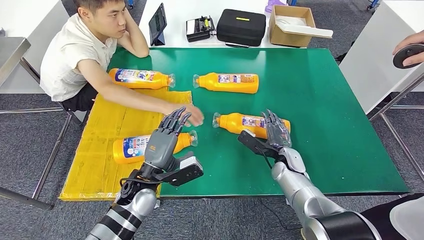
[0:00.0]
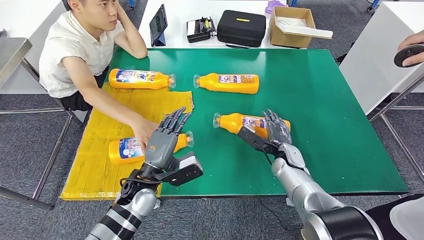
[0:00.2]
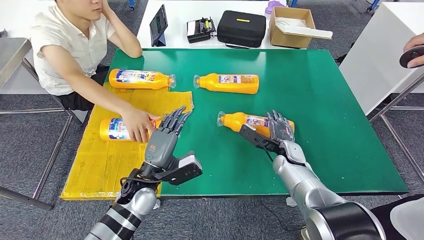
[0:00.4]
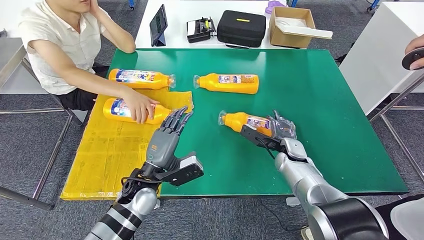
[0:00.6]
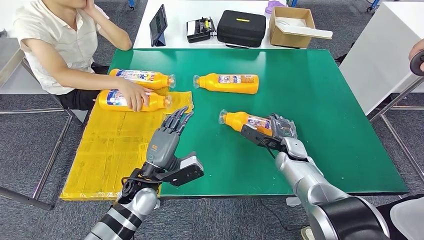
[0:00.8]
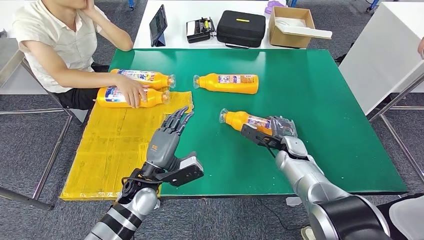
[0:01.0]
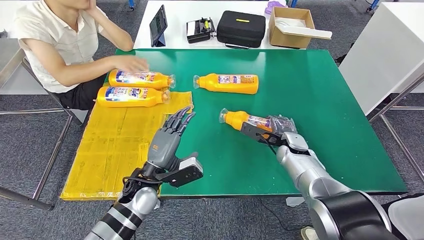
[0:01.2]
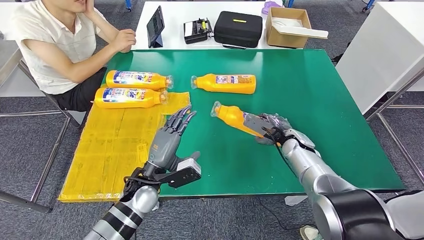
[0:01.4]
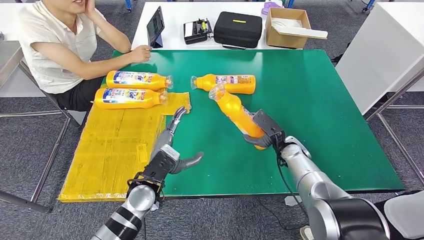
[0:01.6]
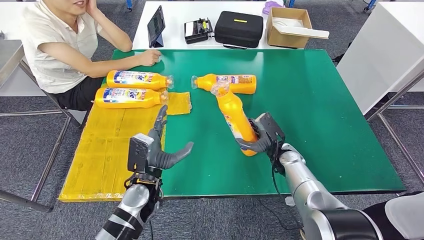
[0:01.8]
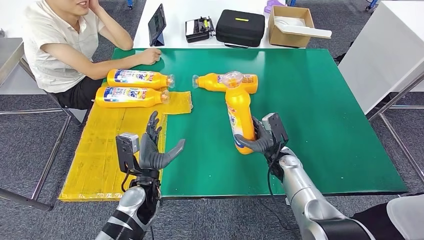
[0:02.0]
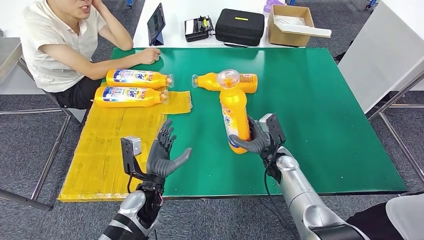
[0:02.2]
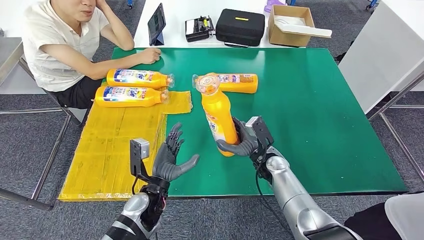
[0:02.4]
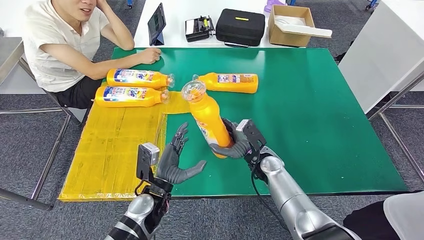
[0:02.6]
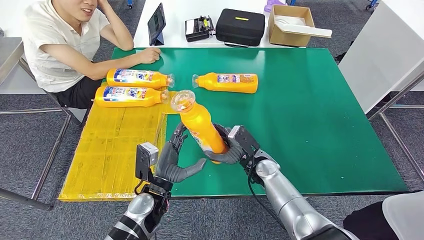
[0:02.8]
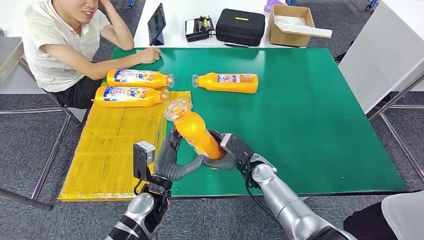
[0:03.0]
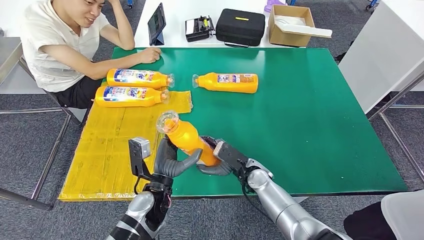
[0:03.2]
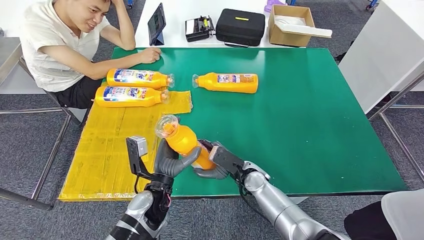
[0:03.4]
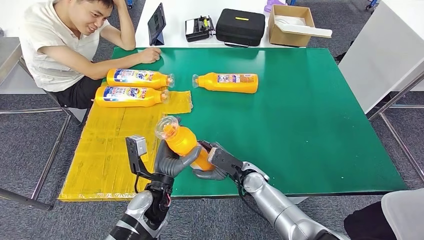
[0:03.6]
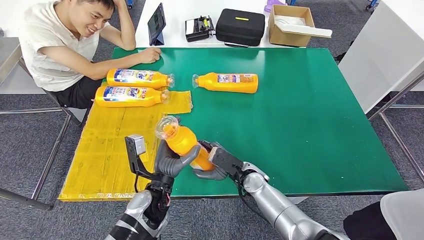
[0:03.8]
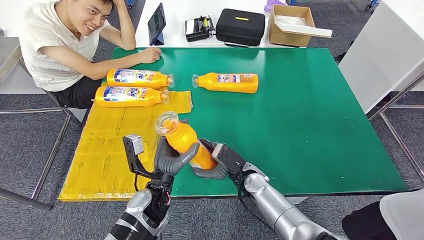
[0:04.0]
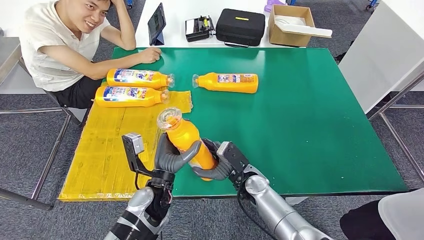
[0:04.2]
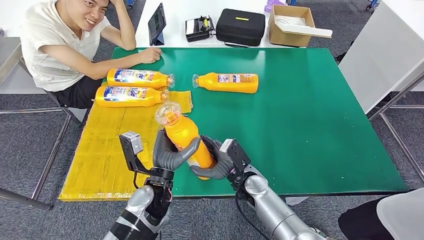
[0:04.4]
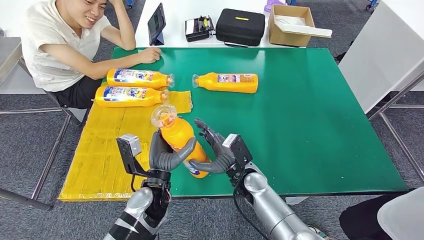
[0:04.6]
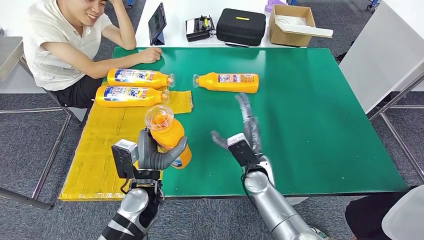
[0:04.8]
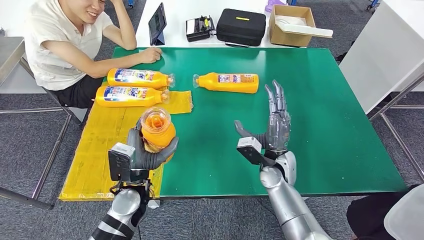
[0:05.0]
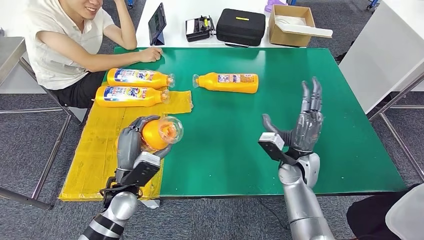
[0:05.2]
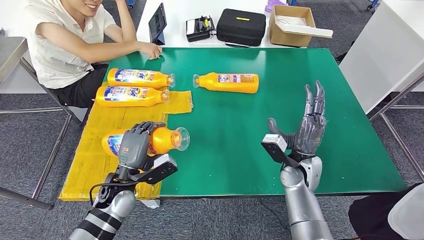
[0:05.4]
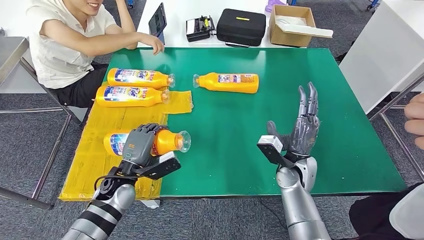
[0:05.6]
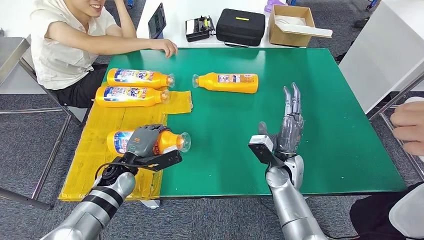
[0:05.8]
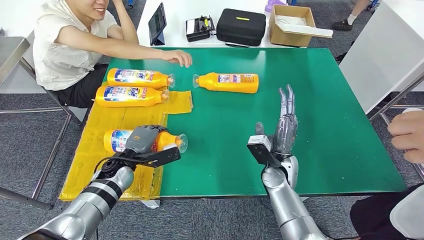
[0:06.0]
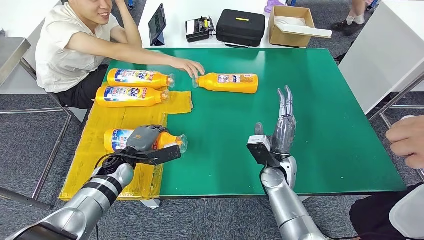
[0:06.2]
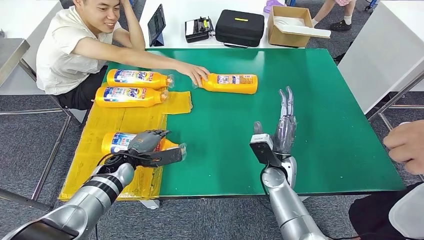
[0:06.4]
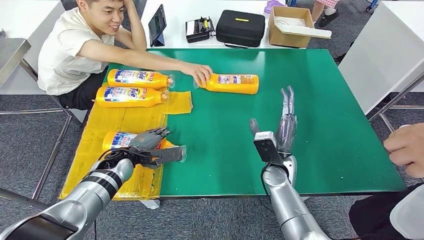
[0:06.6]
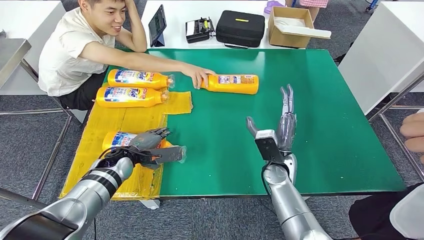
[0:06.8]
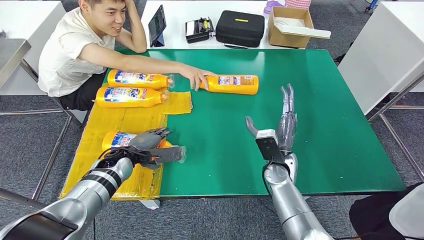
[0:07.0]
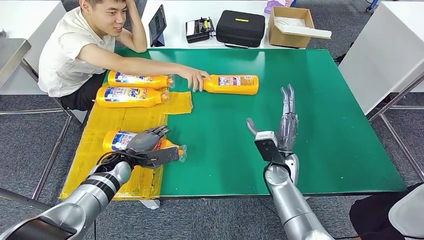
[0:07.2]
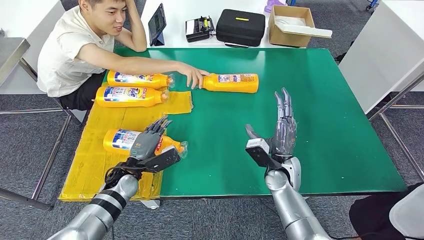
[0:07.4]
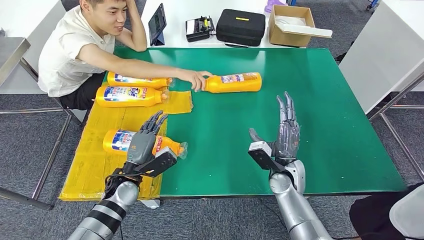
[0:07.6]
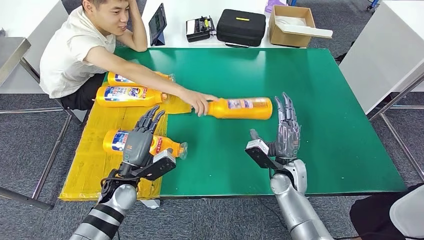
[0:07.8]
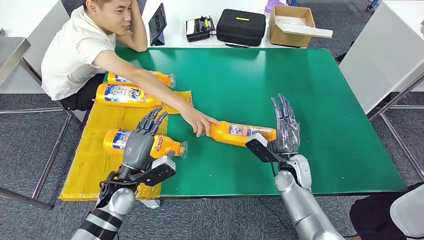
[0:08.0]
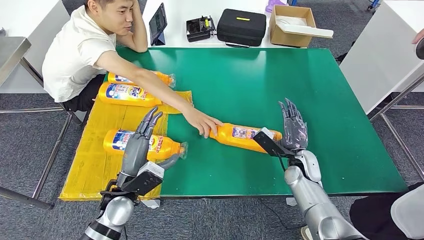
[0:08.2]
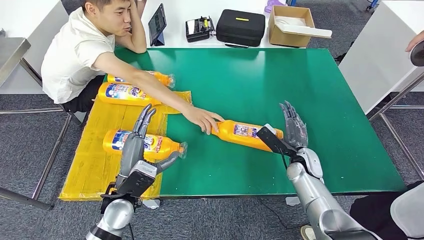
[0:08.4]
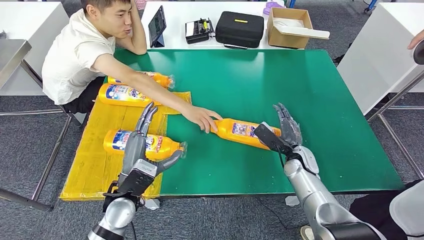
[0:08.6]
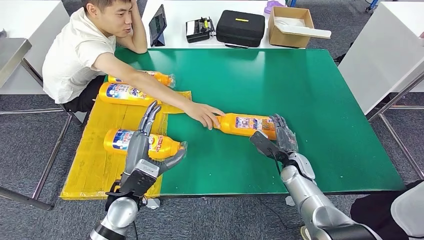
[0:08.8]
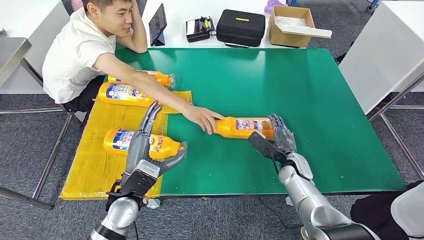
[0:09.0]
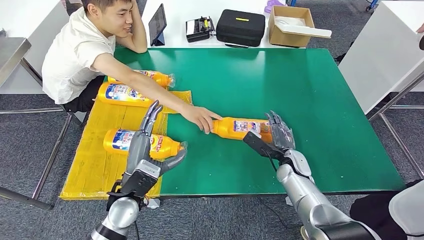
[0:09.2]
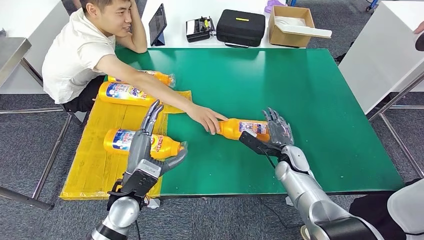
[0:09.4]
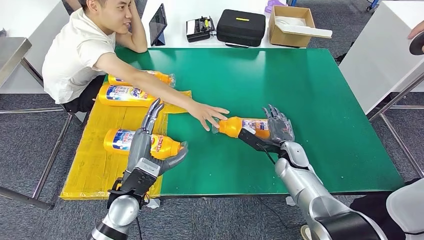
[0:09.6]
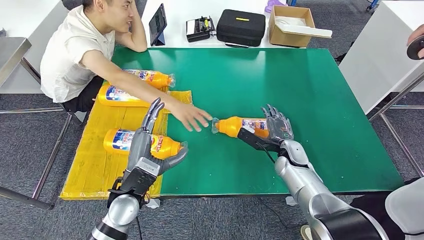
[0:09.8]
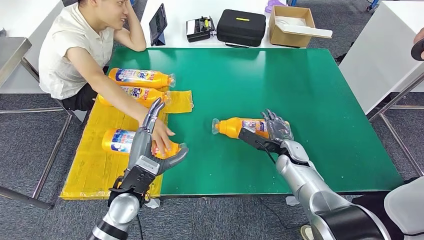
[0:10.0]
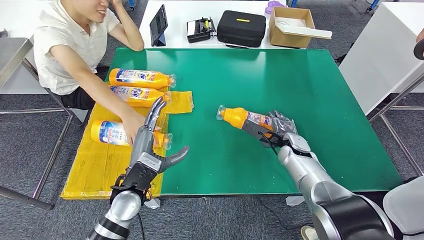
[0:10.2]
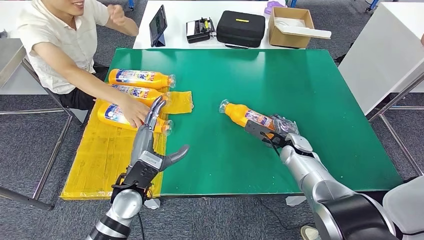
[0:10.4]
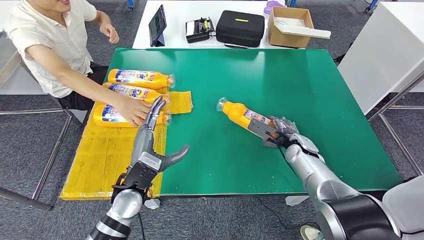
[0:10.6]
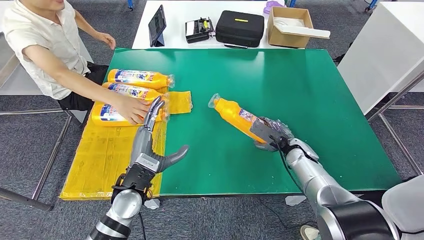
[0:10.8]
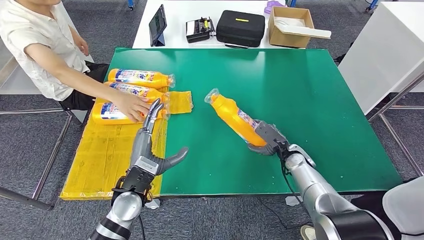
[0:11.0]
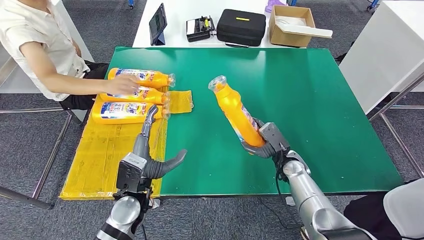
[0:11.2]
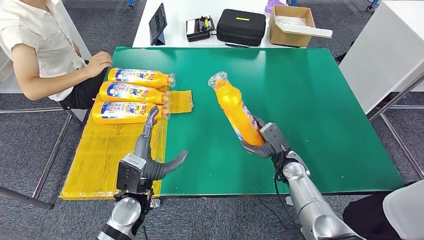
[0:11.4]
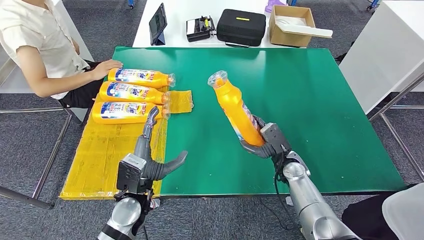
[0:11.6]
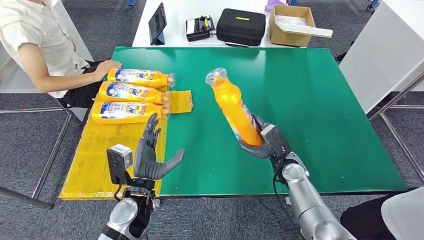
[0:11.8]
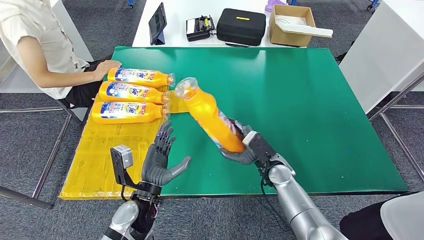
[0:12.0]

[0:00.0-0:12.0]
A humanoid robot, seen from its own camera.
Step, 0:01.4 to 0:03.4: Pick up the fast-moving consumer goods bottle from the table.
Step, 0:03.6 to 0:08.2: Flip the fast-moving consumer goods bottle to the front side.
0:03.0 to 0:04.4: The right hand shifts by approximately 5 cm.

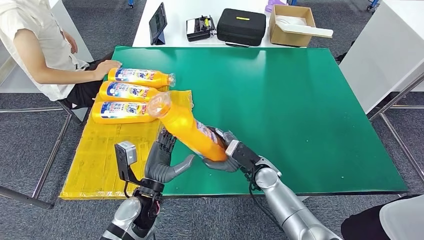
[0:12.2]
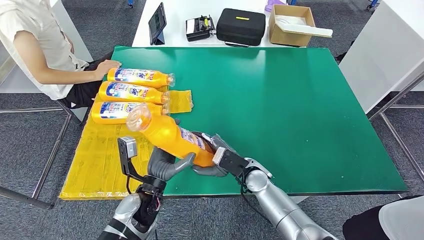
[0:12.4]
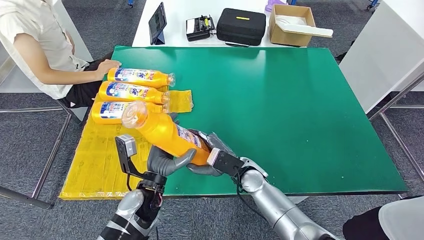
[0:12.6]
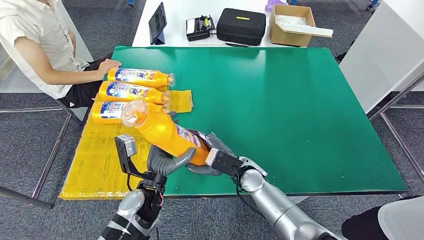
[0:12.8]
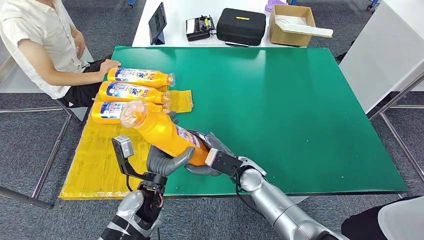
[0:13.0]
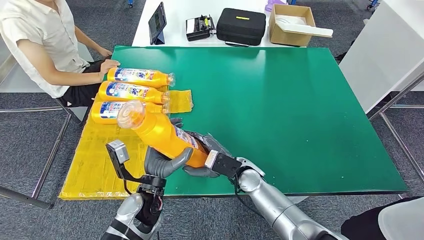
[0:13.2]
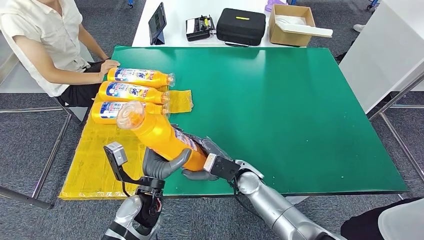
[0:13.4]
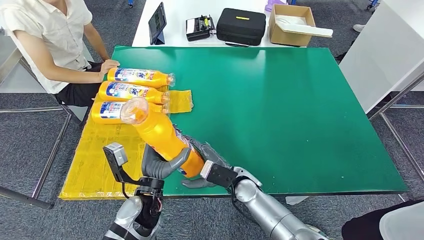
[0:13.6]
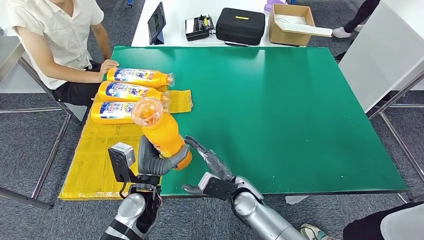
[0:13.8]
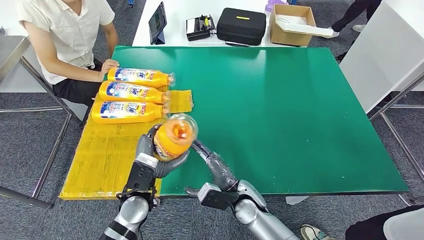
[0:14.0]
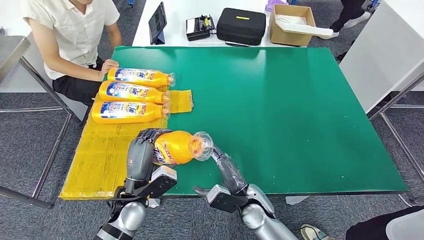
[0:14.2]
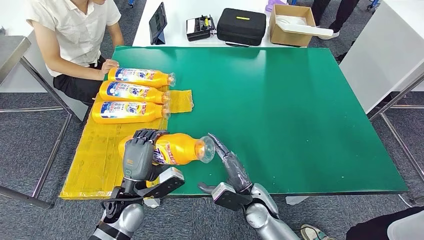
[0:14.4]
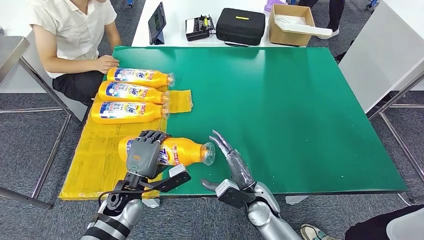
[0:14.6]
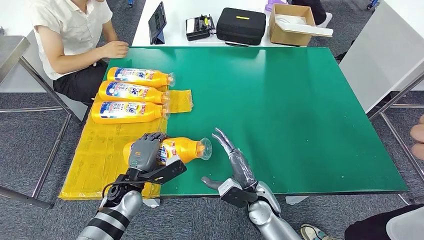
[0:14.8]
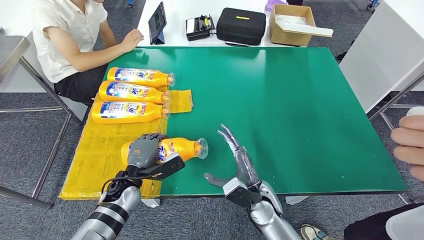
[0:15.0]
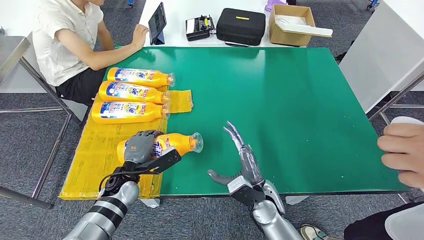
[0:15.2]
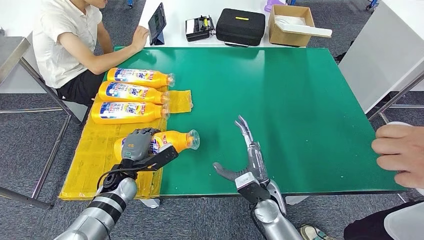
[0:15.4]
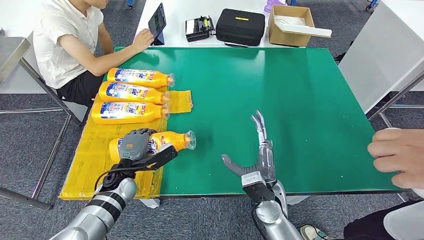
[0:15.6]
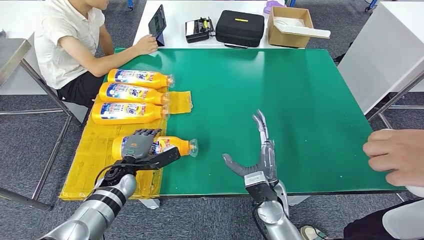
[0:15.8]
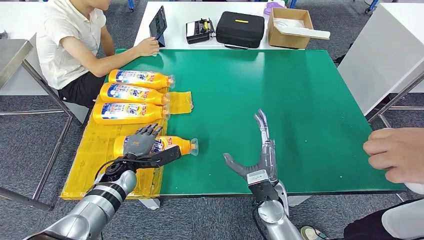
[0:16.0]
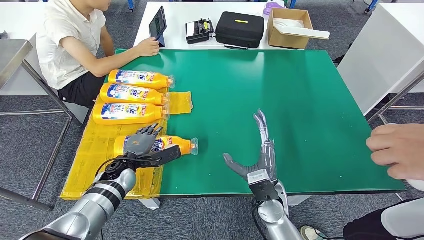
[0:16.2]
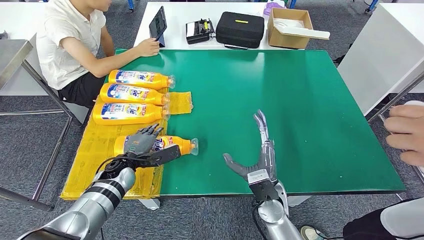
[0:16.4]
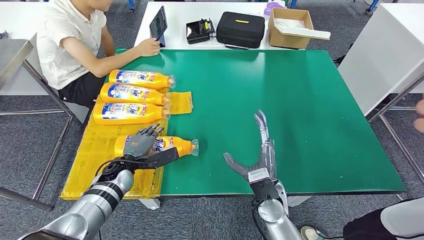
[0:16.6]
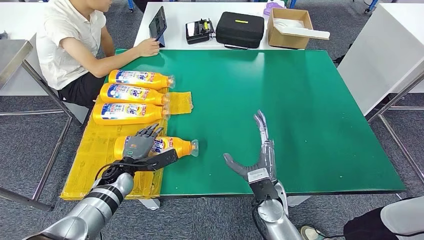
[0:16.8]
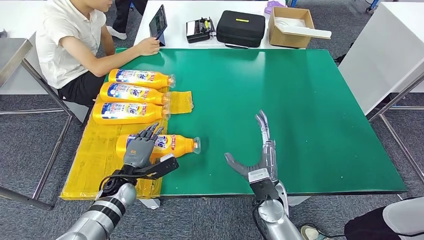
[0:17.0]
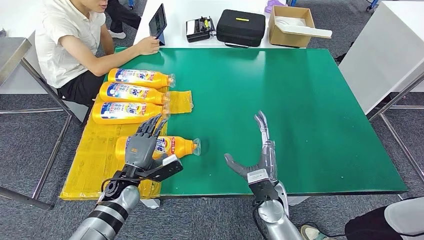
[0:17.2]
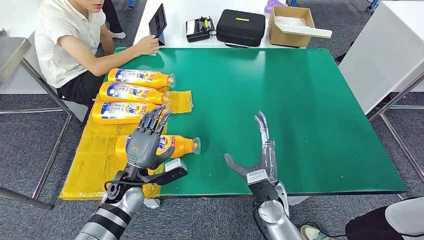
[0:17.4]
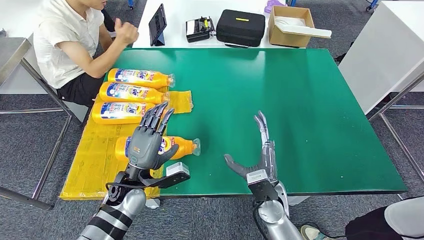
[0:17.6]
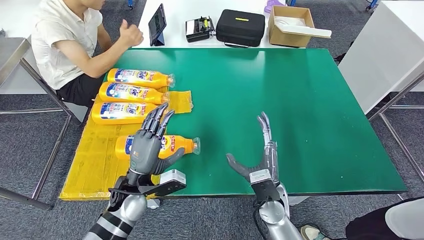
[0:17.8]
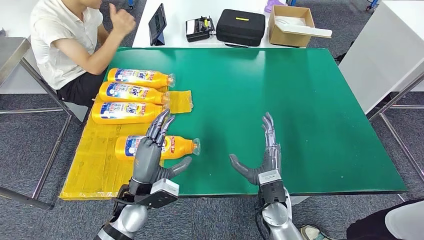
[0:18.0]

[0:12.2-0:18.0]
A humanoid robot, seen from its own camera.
Step, 0:12.2 to 0:18.0: Flip the fast-moving consumer goods bottle to the front side.
0:12.2 to 0:13.6: The right hand shifts approximately 5 cm to the left.
